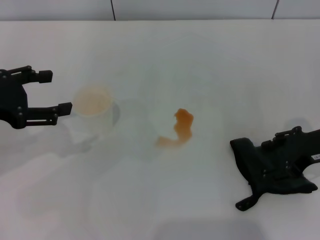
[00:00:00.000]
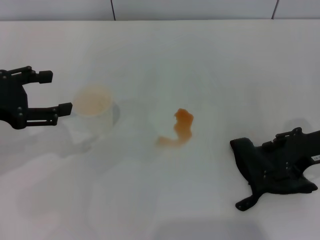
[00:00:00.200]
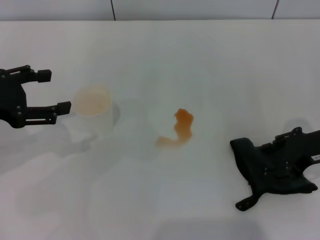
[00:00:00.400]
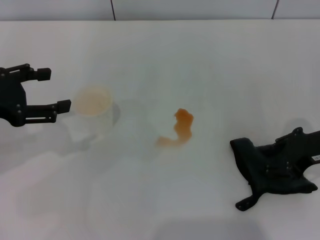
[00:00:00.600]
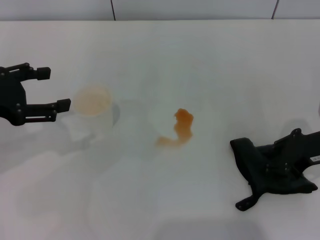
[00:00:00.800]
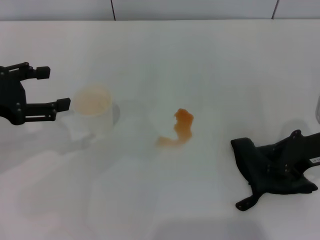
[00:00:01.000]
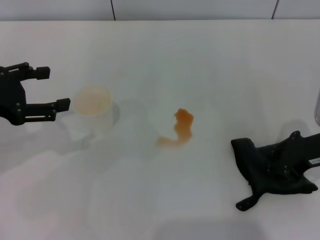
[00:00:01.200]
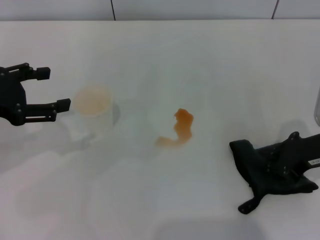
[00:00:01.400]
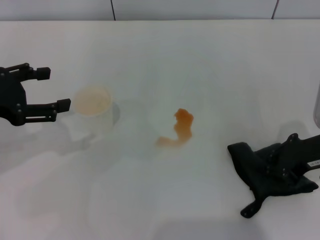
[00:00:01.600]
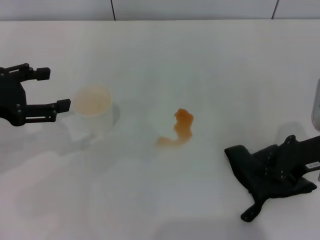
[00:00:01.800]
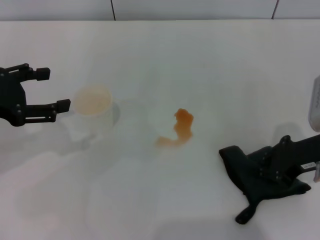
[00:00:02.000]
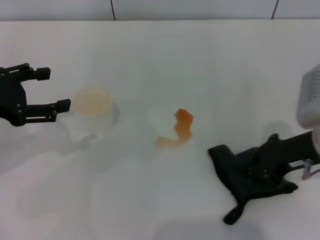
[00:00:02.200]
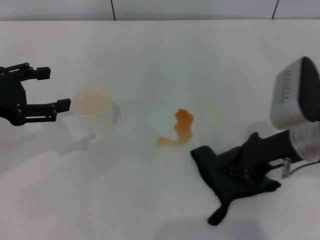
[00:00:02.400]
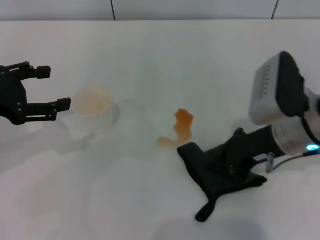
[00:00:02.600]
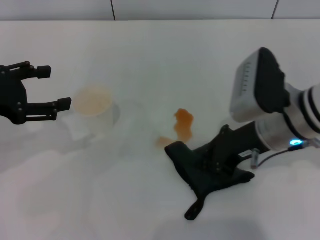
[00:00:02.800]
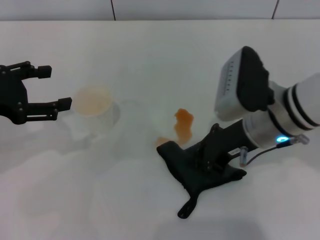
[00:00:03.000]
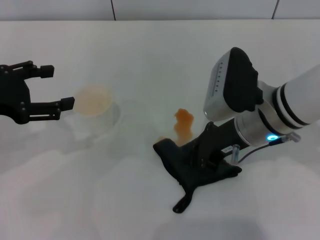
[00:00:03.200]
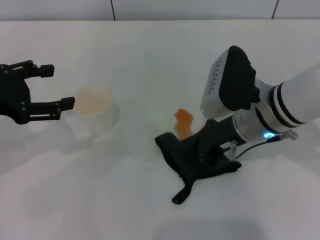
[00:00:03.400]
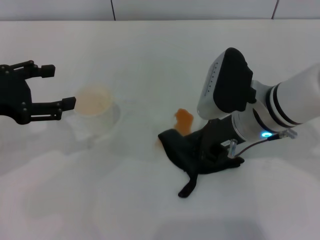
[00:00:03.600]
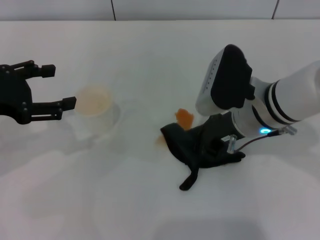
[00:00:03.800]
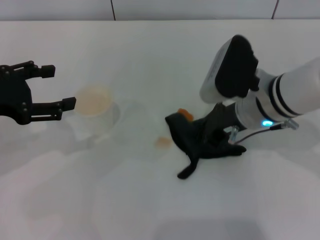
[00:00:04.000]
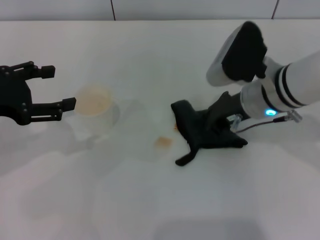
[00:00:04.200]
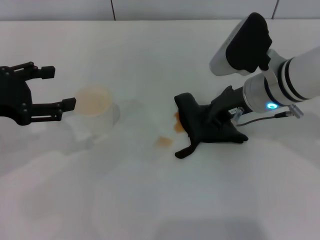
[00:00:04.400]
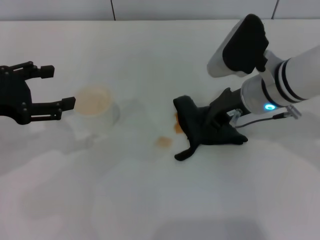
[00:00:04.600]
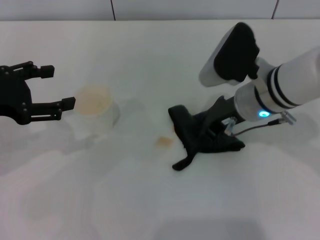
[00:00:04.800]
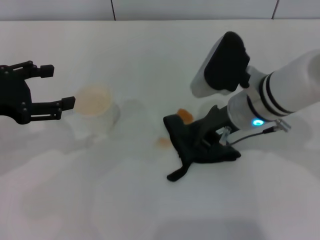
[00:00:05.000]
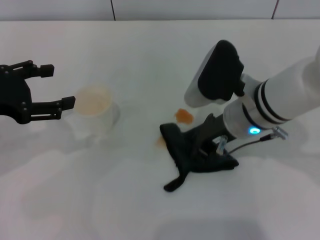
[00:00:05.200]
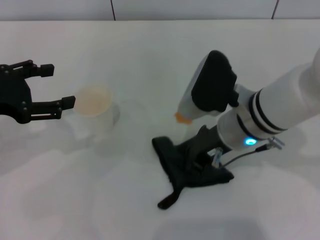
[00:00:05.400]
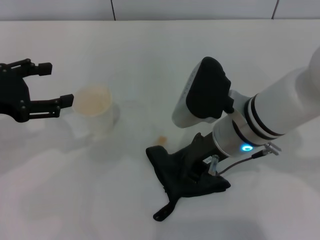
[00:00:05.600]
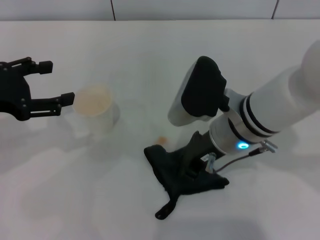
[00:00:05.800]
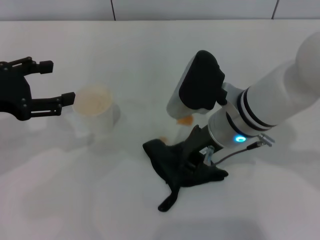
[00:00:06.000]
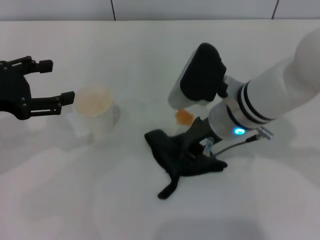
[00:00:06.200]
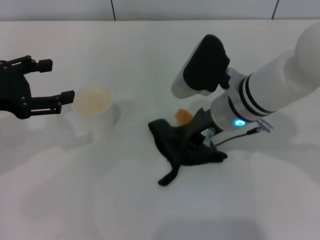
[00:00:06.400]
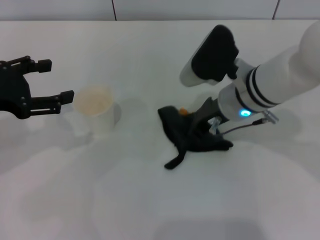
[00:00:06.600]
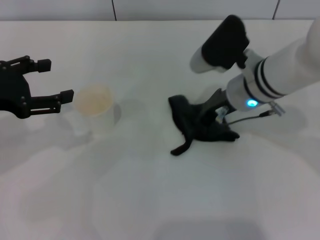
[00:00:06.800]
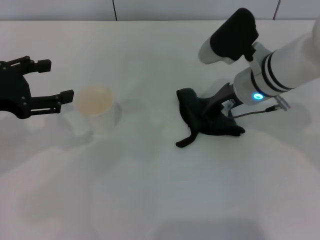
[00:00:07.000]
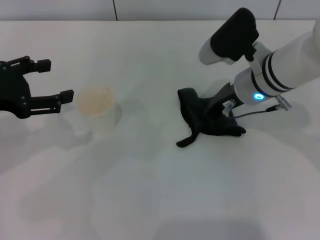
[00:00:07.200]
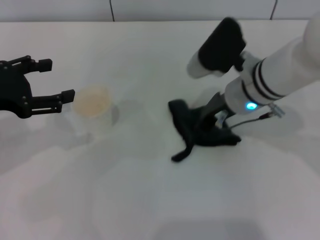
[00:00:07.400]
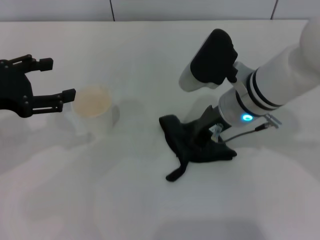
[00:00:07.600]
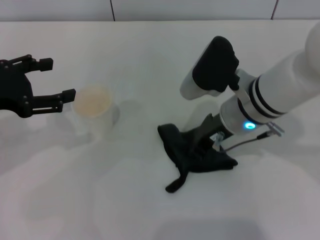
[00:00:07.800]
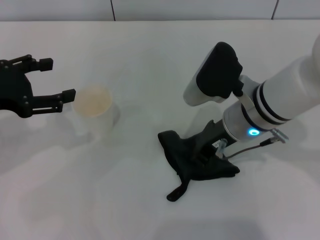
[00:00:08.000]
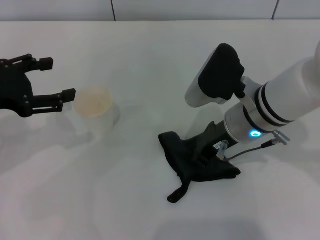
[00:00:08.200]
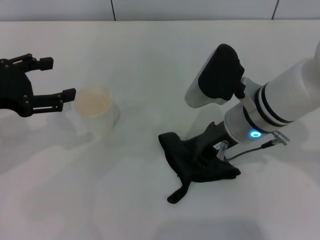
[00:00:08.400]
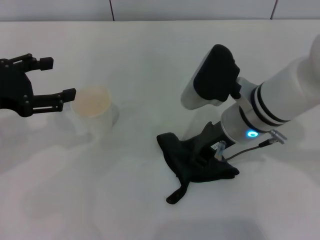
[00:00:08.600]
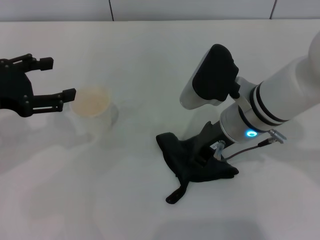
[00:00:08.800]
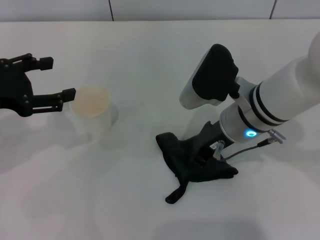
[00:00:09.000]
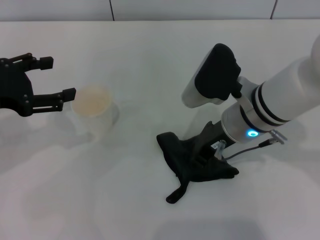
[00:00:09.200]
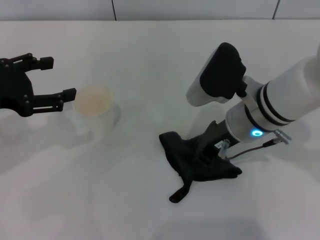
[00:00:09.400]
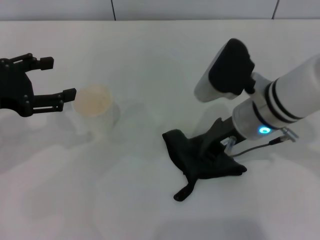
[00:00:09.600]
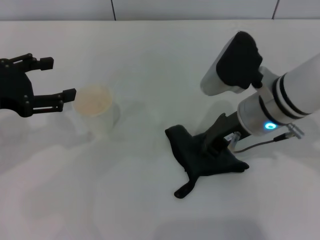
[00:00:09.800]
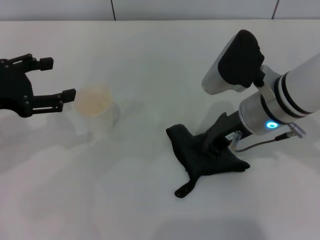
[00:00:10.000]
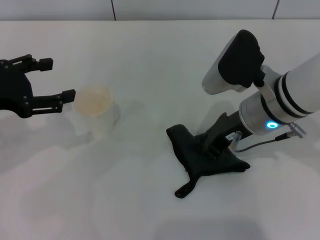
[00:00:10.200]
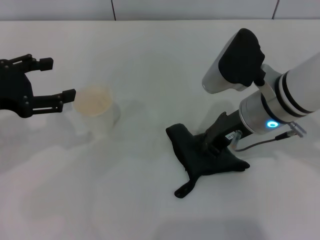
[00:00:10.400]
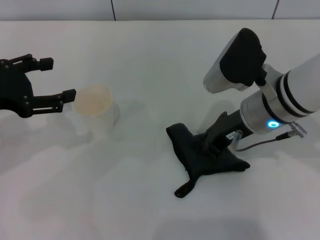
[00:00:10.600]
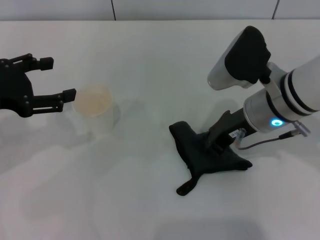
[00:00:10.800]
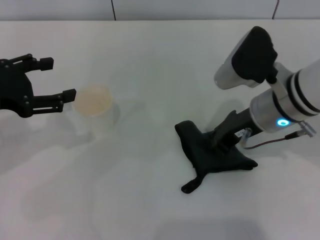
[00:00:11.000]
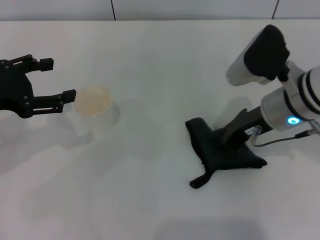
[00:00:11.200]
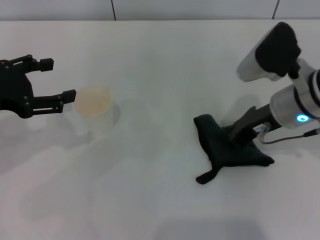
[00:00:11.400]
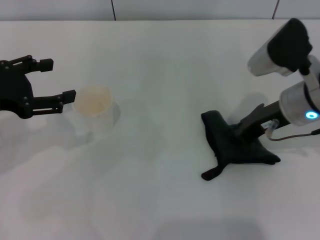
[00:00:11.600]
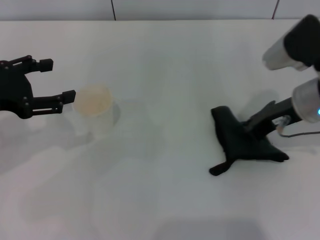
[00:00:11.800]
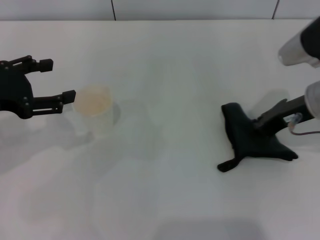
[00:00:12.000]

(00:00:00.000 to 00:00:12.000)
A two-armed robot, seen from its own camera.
Step, 00:00:01.600 - 00:00:09.600: Wipe the stains off the table with the right gripper.
00:00:00.000 - 00:00:01.600: The right gripper closes.
00:00:01.600 - 00:00:03.000: The right gripper heads to the left, covering approximately 10 cm.
00:00:03.000 - 00:00:04.400: The grippers make only small movements.
00:00:04.400 - 00:00:06.000: The right gripper heads to the left, covering approximately 5 cm.
00:00:07.600 - 00:00:10.400: The grippers make only small movements.
00:00:10.400 - 00:00:12.000: The right gripper goes some 10 cm to the right.

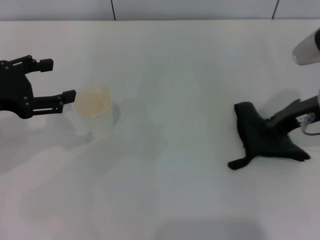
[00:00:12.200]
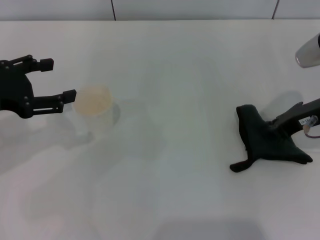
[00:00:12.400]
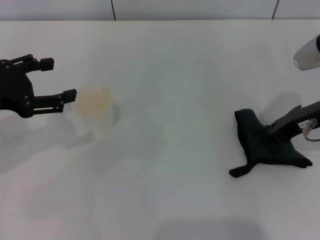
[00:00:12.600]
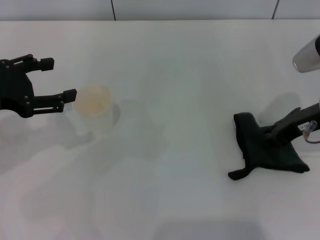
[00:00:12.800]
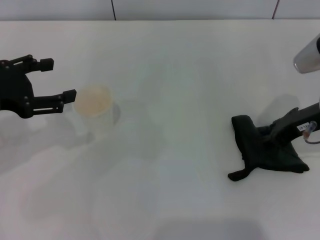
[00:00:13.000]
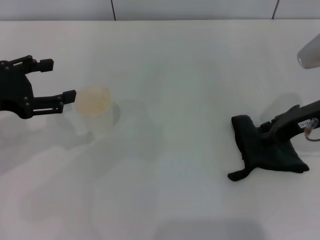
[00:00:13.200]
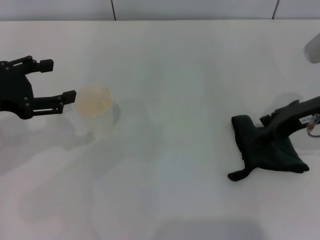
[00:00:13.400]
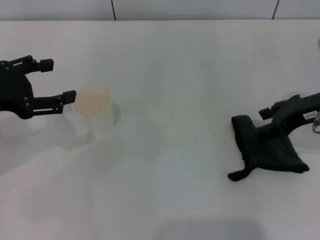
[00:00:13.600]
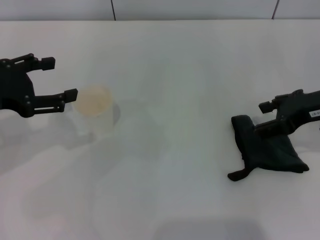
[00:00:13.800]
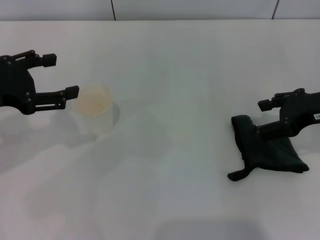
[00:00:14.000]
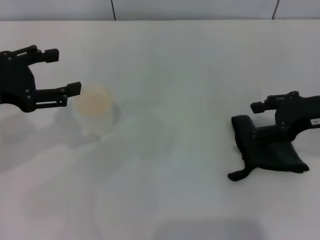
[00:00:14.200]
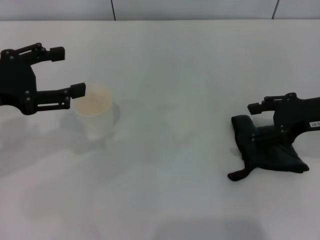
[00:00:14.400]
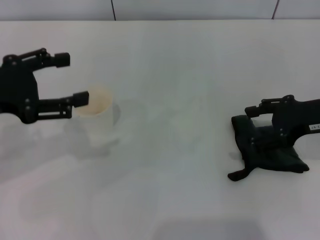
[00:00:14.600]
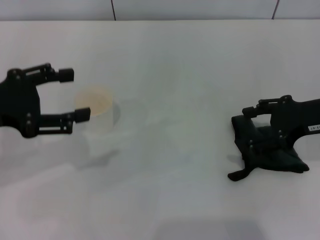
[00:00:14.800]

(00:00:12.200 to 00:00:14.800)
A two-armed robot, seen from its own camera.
00:00:12.200 - 00:00:13.400: The right gripper opens up.
00:00:13.400 - 00:00:14.800: The right gripper opens.
